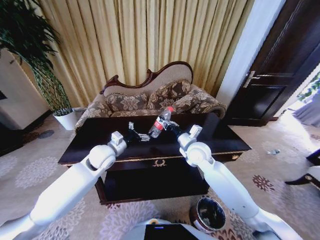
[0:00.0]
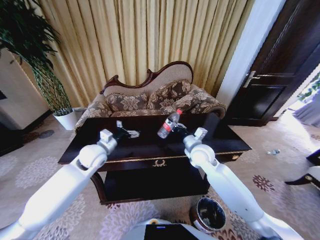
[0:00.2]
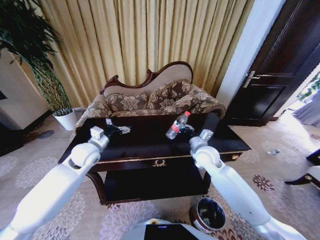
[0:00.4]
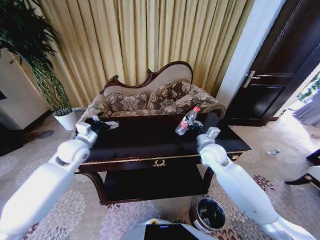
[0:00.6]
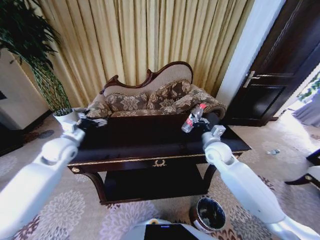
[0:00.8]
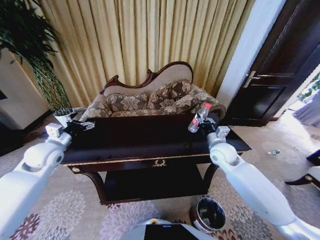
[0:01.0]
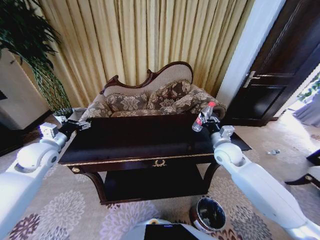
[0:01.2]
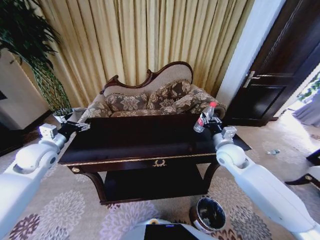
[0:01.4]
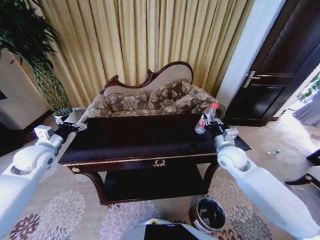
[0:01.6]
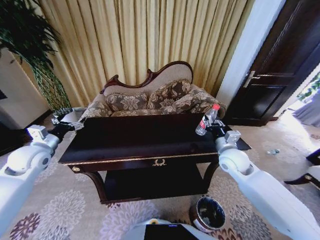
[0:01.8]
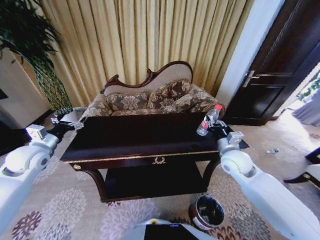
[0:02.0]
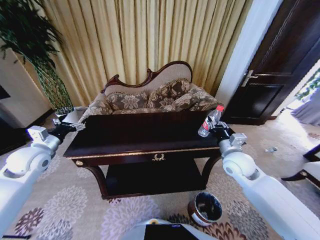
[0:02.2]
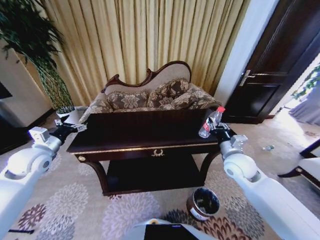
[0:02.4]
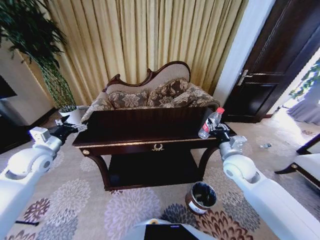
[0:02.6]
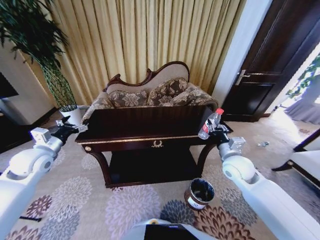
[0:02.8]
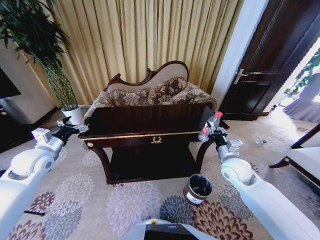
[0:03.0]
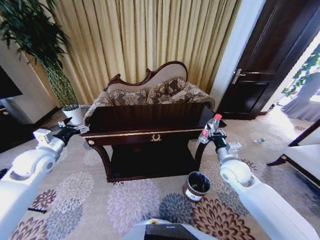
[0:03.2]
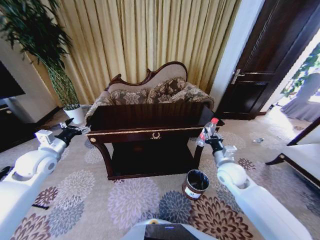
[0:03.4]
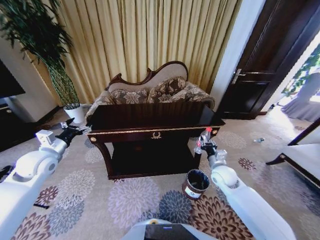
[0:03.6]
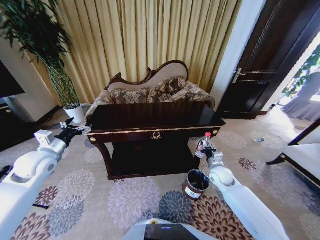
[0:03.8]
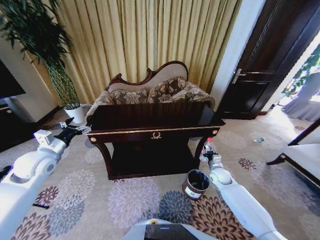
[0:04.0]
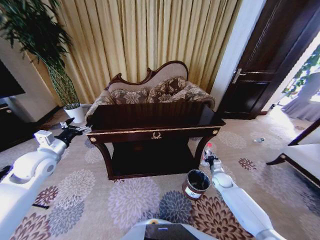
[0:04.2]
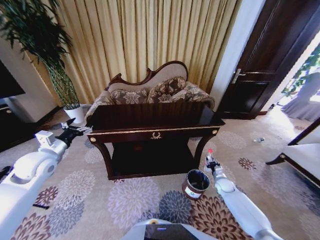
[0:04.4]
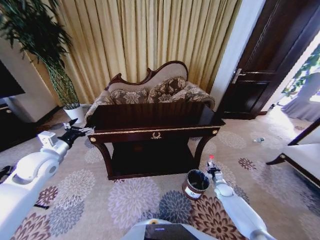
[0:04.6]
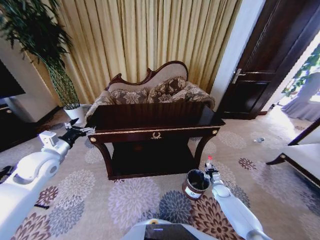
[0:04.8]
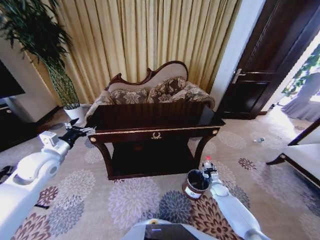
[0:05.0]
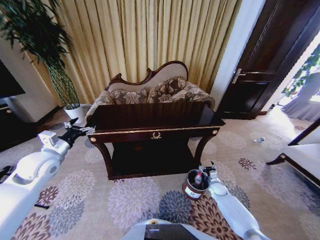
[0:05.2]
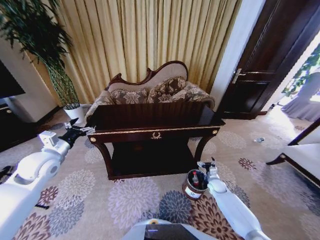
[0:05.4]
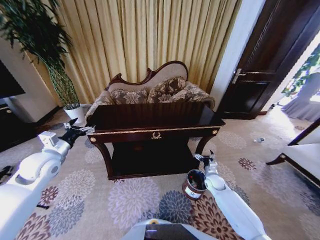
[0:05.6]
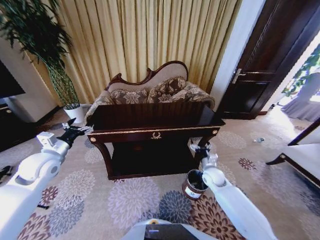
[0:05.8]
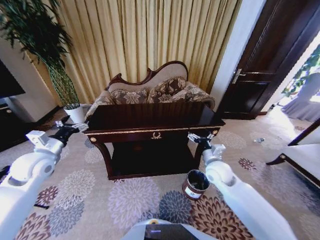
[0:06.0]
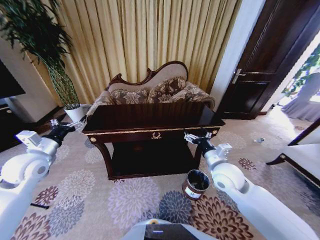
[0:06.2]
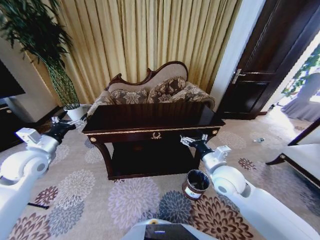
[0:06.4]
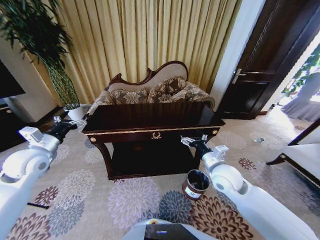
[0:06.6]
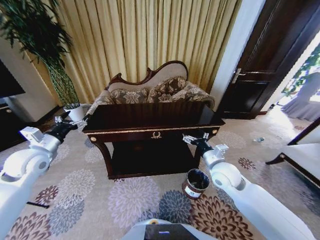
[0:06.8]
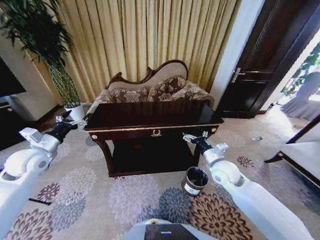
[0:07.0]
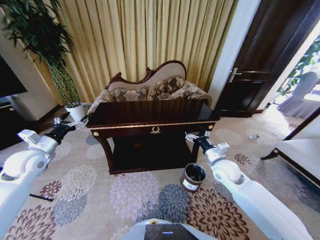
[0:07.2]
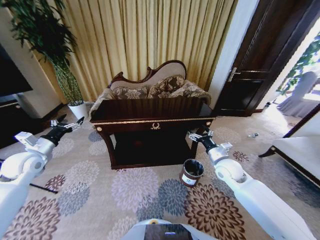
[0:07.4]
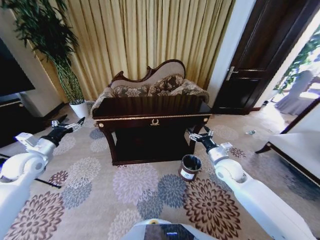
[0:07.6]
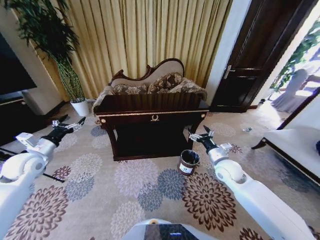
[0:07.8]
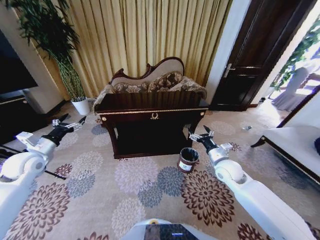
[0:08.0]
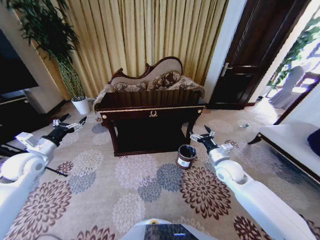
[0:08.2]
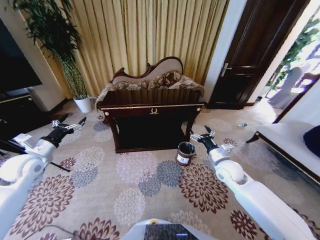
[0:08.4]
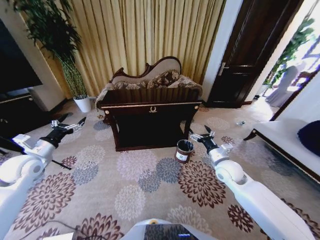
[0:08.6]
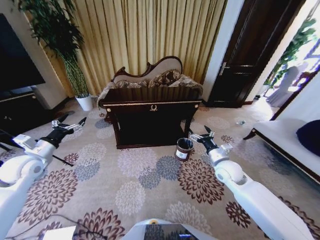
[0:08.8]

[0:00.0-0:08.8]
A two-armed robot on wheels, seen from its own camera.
Task of the whole recording: Move to the front of the table and place the trash on the table into the trash bin.
0:00.0 to 0:01.4: The left gripper is displaced to the left by about 20 cm; the right gripper goes about 15 cm to the right.
0:01.4 to 0:03.0: The right gripper moves some 5 cm.
0:03.0 to 0:04.4: The right gripper heads downward, covering roughly 30 cm.
0:04.4 to 0:05.8: The right gripper moves upward and to the left, approximately 20 cm, and opens.
0:05.8 to 0:07.4: The left gripper goes some 10 cm to the left, while the right gripper goes approximately 10 cm upward.

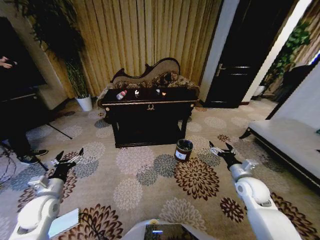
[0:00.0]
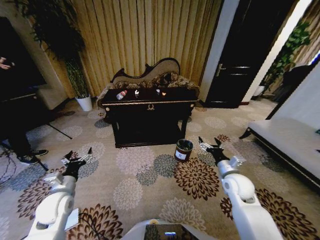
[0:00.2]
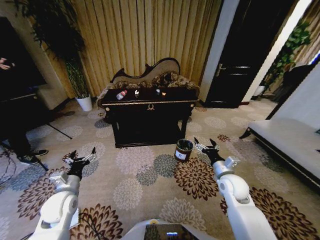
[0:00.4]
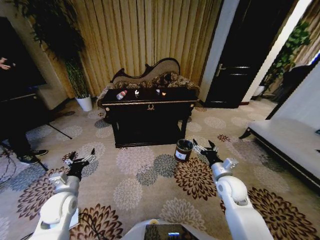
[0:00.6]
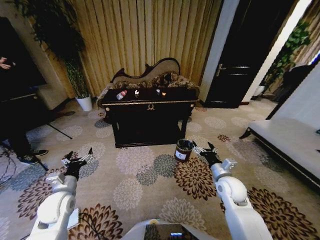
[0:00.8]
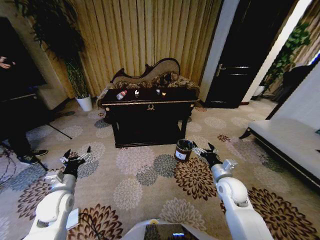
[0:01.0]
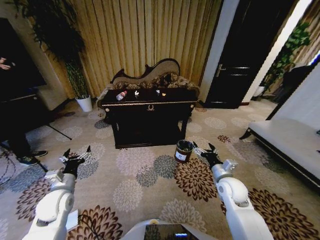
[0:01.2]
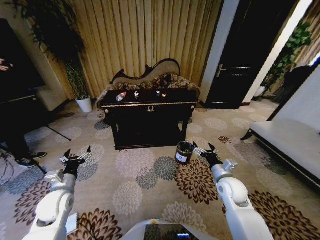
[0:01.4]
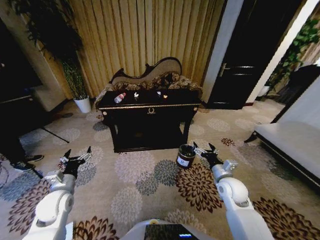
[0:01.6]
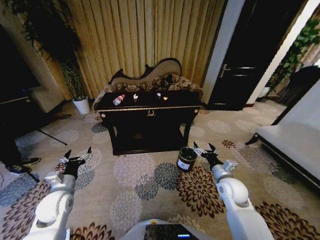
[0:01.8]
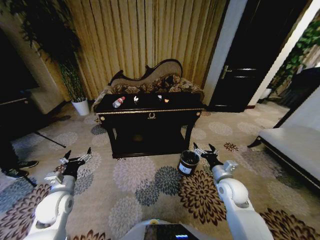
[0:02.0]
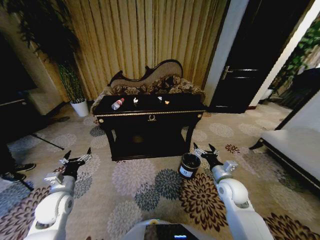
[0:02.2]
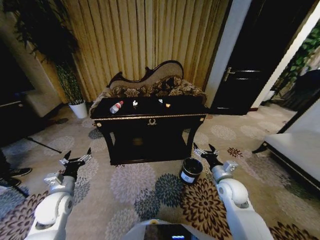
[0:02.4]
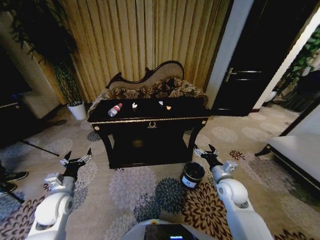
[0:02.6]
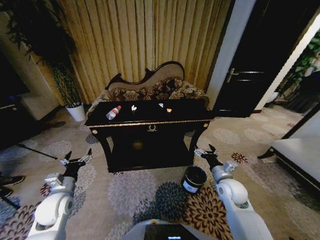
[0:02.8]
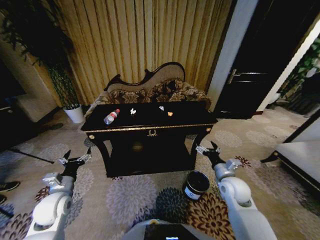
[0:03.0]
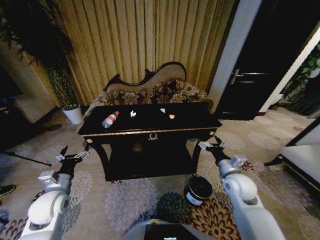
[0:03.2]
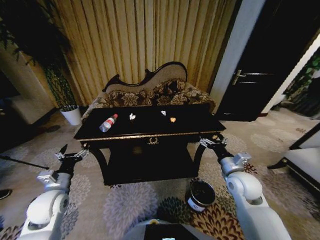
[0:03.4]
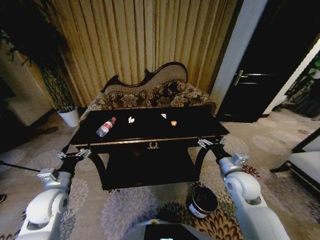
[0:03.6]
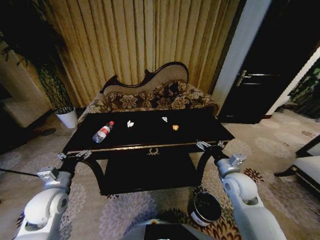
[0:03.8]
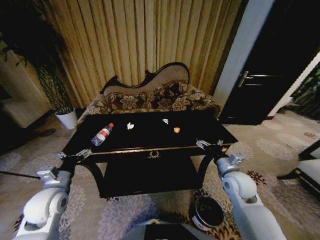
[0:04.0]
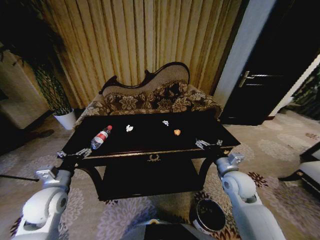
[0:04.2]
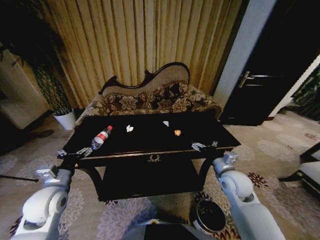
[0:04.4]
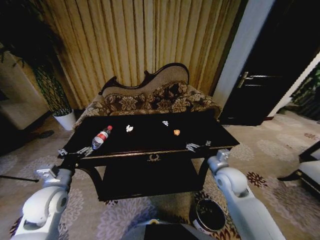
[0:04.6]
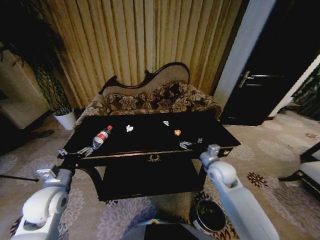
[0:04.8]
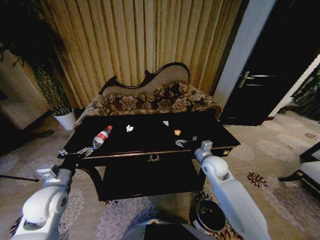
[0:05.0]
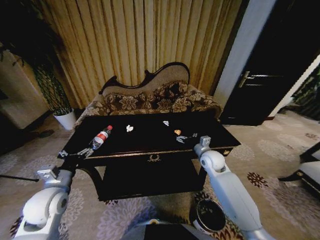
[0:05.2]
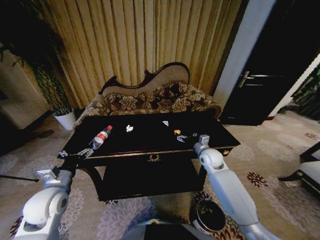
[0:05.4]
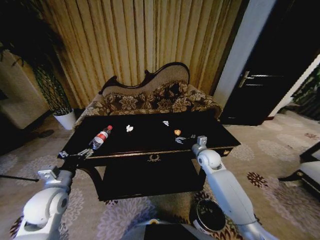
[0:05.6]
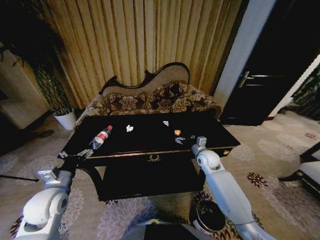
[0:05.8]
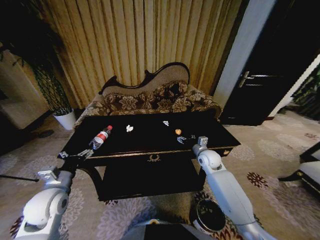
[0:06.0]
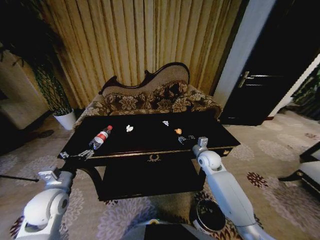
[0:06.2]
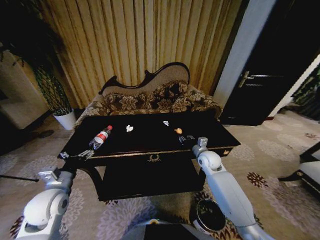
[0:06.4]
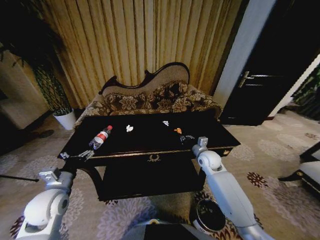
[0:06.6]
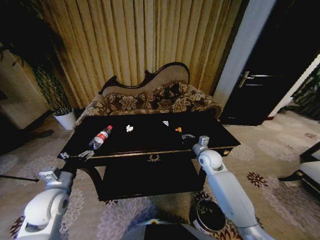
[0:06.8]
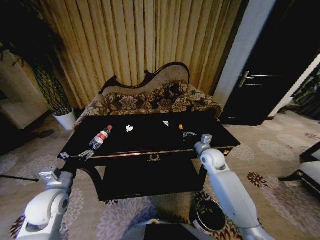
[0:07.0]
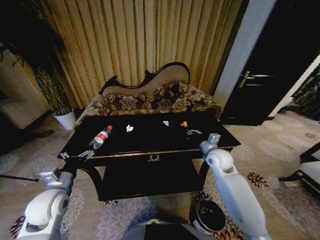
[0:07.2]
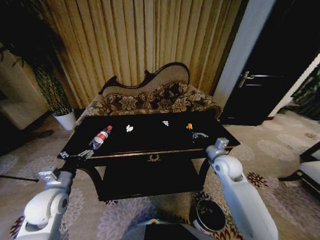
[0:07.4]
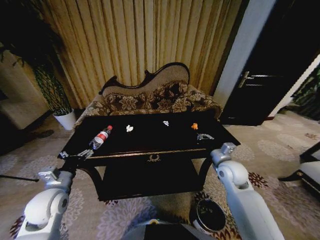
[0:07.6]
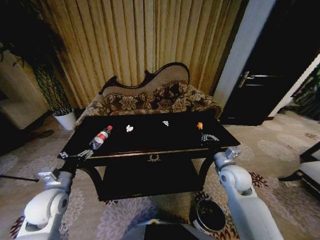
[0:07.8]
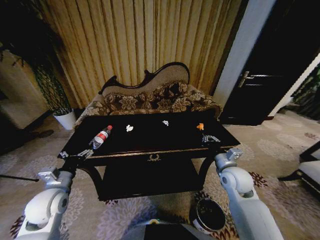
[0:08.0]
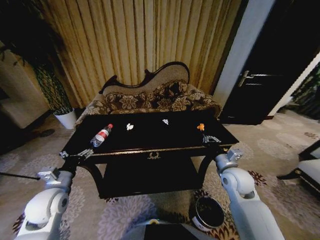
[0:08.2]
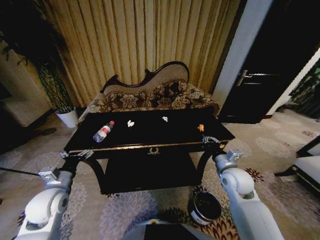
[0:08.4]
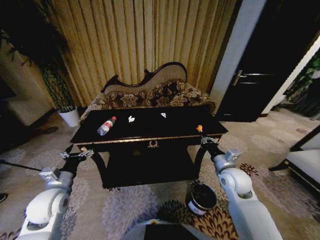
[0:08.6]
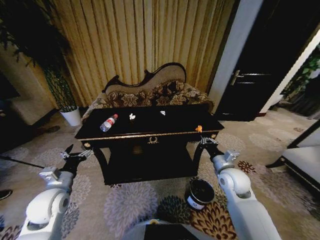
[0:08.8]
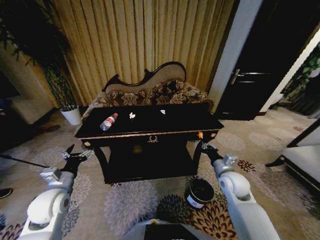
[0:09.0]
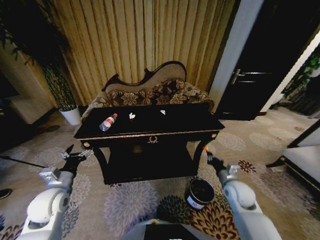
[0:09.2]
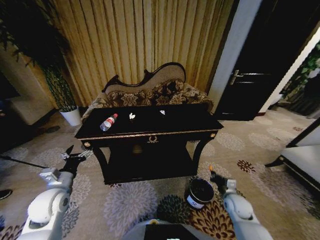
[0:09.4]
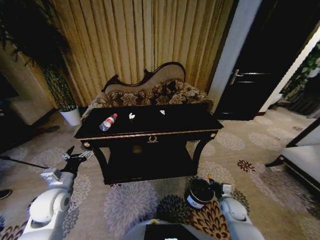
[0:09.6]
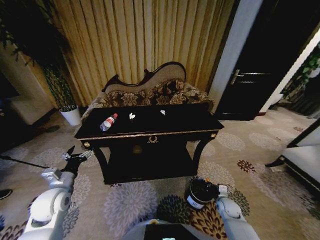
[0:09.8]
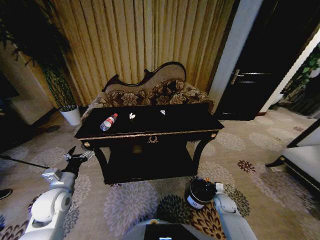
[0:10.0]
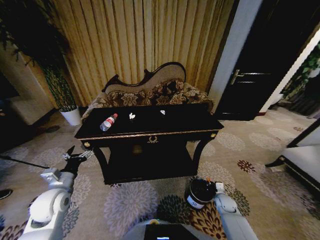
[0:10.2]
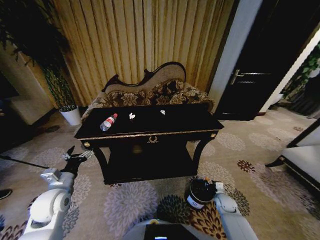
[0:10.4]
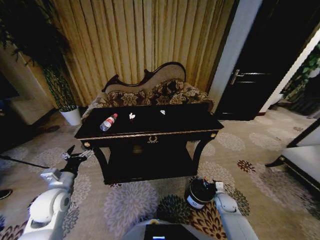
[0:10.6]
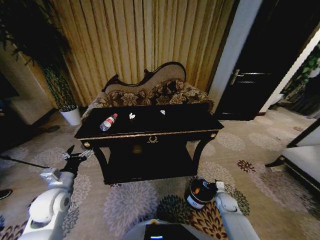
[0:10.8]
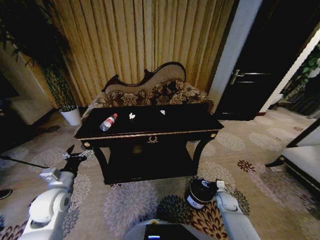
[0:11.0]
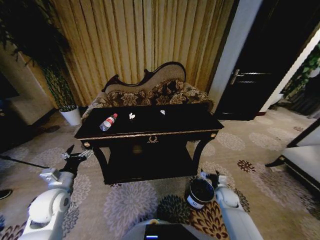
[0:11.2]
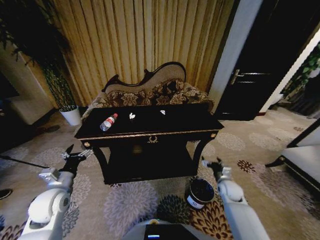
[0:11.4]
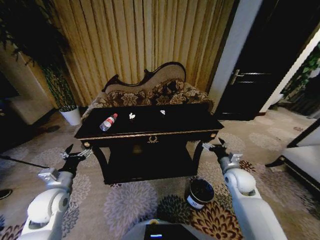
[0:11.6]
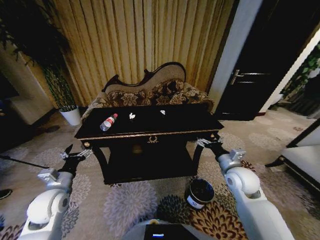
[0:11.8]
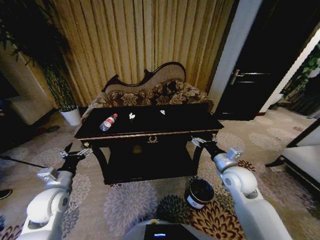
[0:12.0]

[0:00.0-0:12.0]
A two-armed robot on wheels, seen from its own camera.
Task of the whole recording: Move to the front of the table and place the trash on the table into the trash bin.
0:03.0 to 0:04.4: The left gripper travels upward by about 5 cm.
0:04.4 to 0:06.0: The right gripper heads forward, covering approximately 15 cm.
0:06.0 to 0:07.6: The right gripper goes approximately 10 cm backward and upward, and closes up.
0:09.0 to 0:10.4: The right gripper travels downward by some 25 cm.
0:10.4 to 0:12.0: The right gripper is displaced upward by about 30 cm, and opens its fingers.

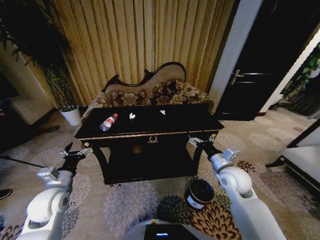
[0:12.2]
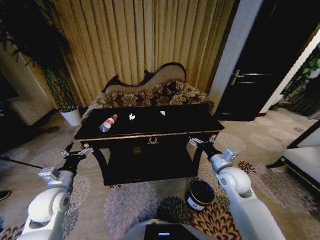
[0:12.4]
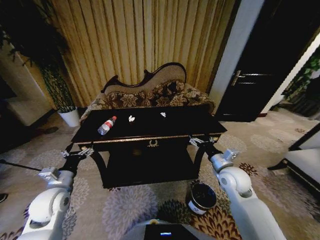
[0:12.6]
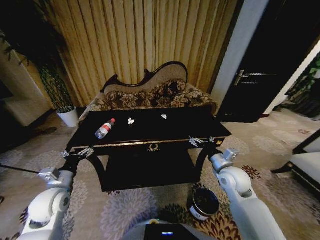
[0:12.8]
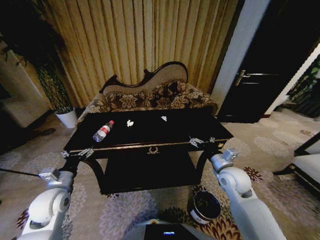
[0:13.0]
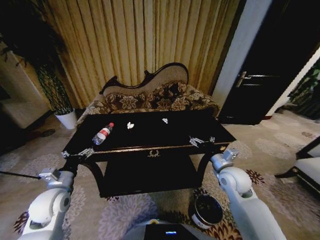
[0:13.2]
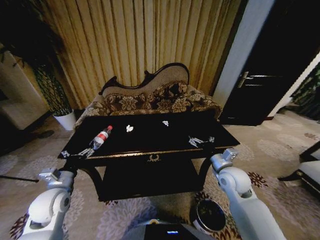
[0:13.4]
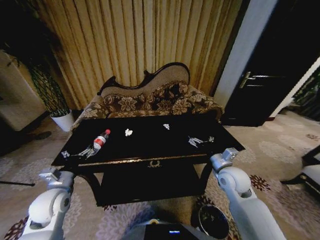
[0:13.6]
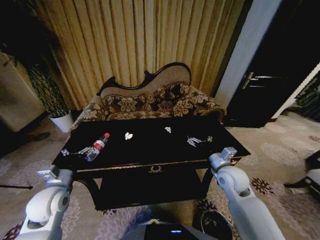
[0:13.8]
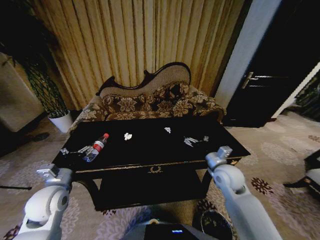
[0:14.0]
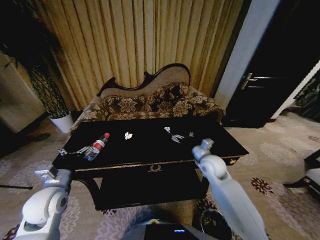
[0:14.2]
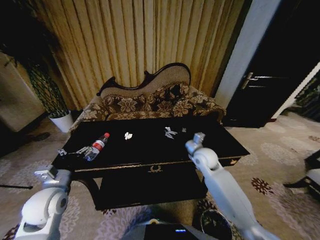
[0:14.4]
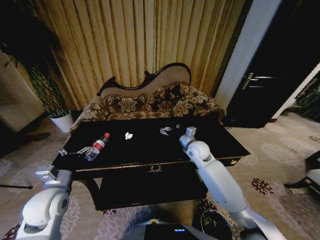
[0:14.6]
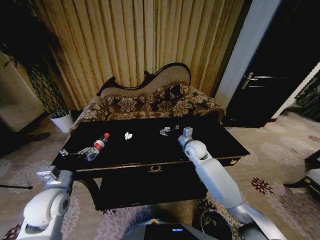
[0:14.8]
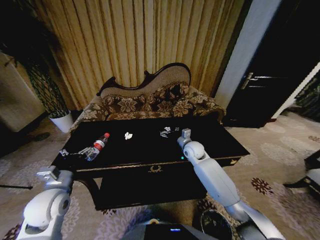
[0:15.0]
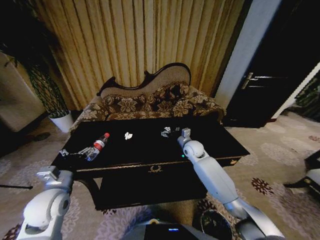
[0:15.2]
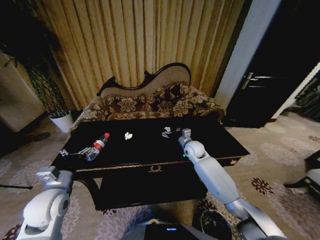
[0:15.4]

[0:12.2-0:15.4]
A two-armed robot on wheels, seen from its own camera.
Task of the whole recording: Move to the front of the table and place the trash on the table into the trash bin.
0:13.8 to 0:15.4: The right gripper travels forward and to the left by approximately 20 cm.
